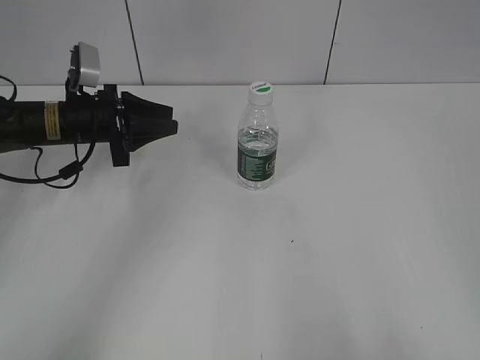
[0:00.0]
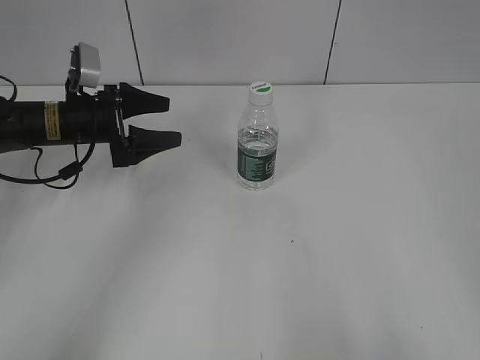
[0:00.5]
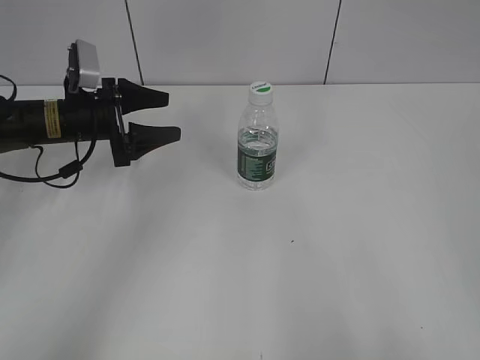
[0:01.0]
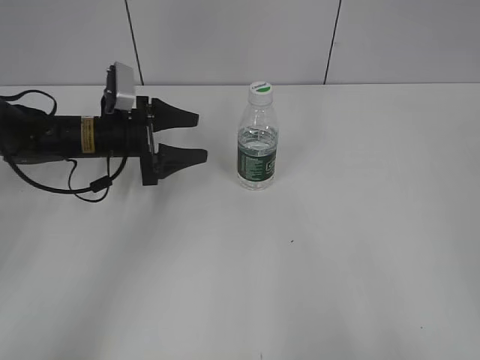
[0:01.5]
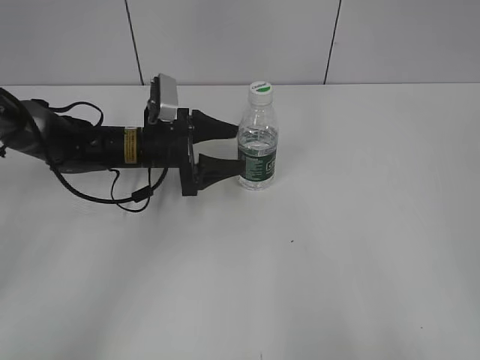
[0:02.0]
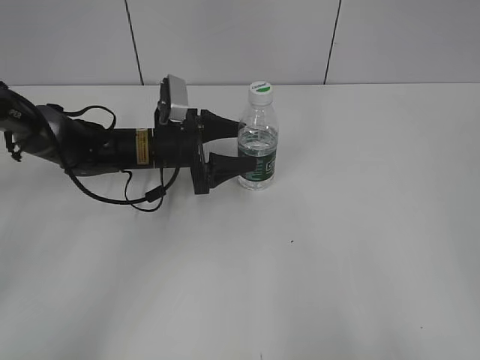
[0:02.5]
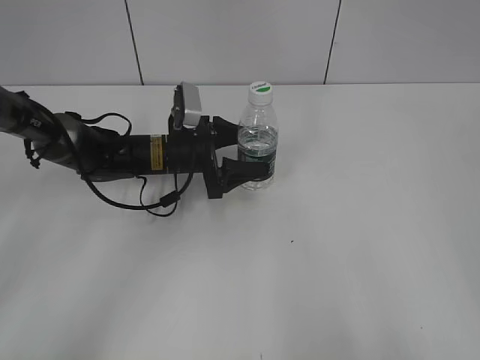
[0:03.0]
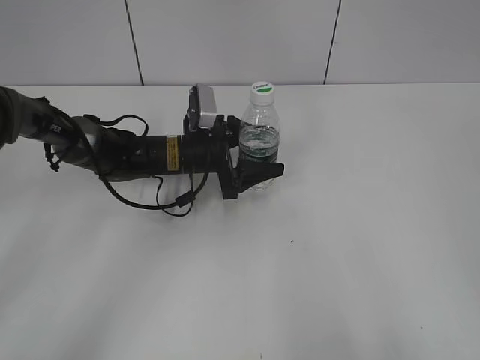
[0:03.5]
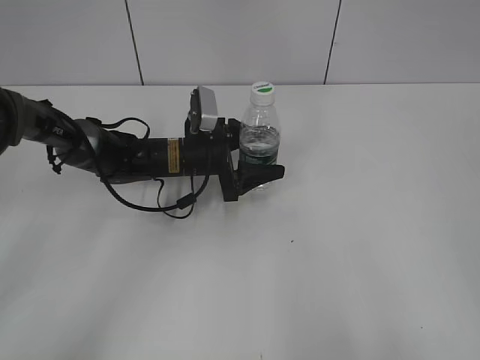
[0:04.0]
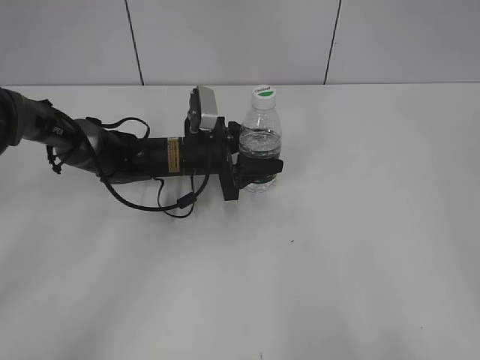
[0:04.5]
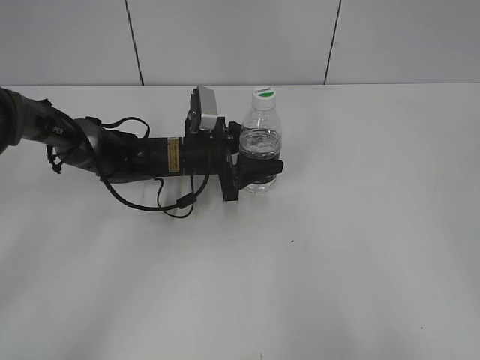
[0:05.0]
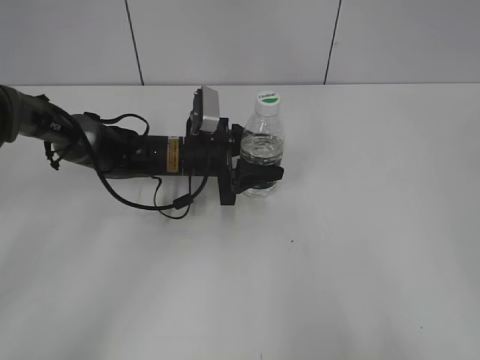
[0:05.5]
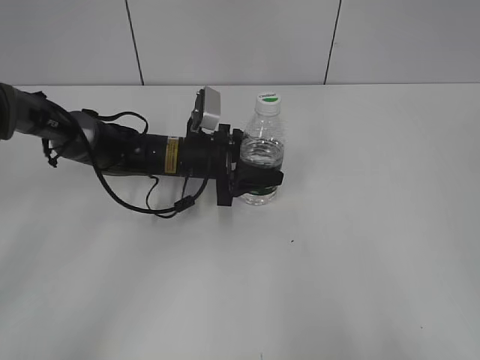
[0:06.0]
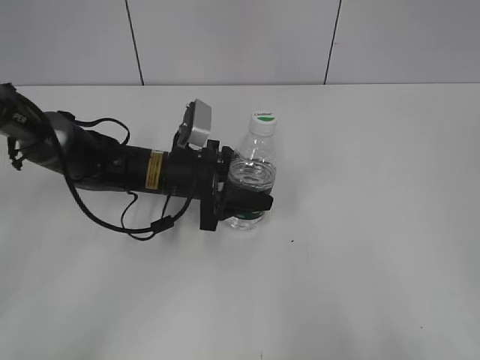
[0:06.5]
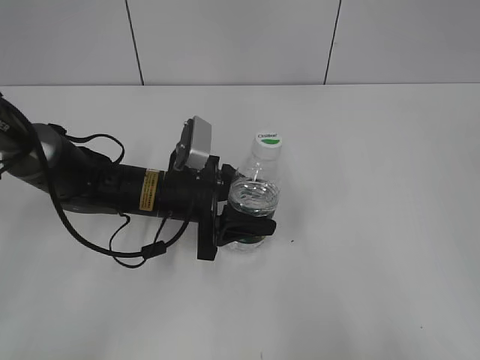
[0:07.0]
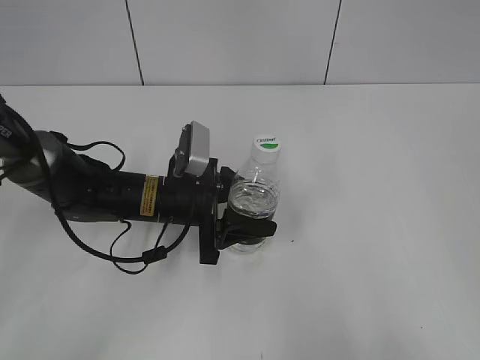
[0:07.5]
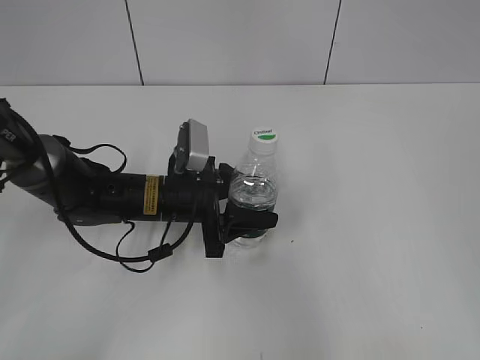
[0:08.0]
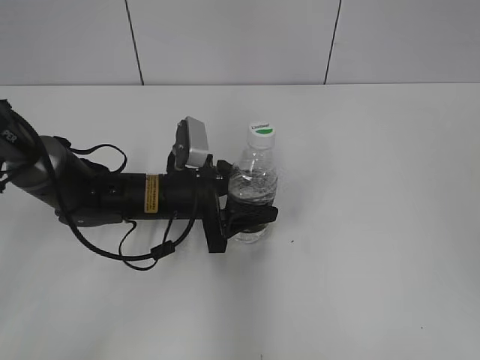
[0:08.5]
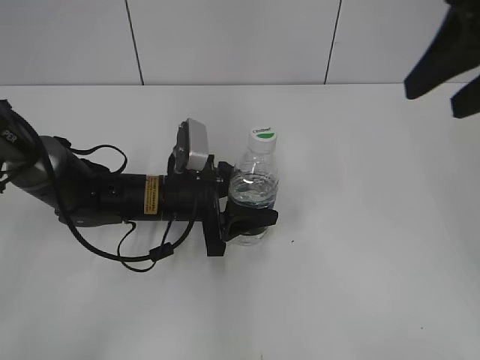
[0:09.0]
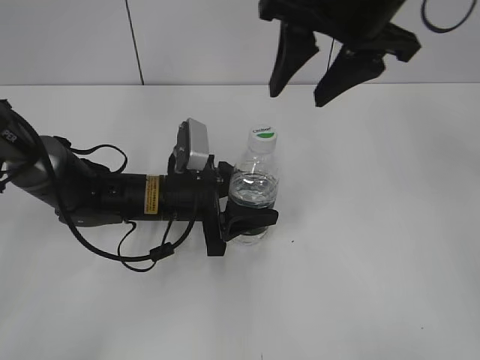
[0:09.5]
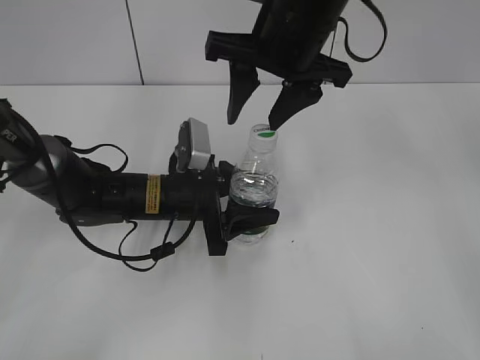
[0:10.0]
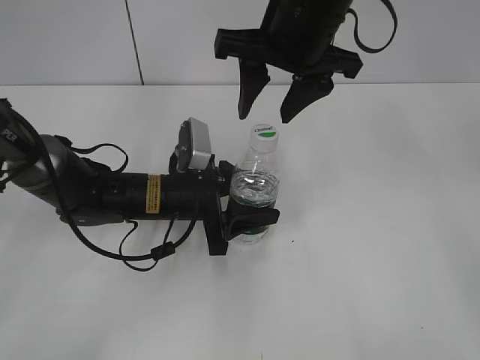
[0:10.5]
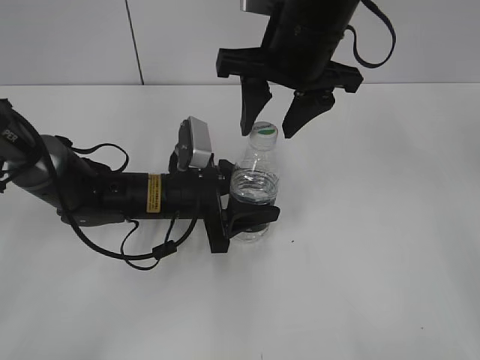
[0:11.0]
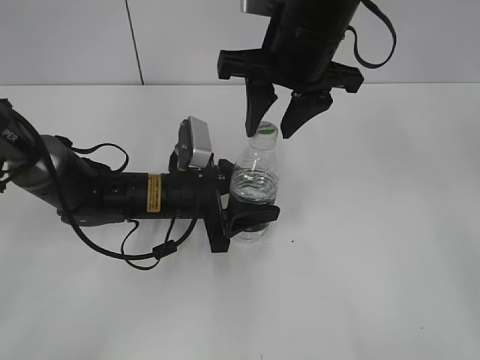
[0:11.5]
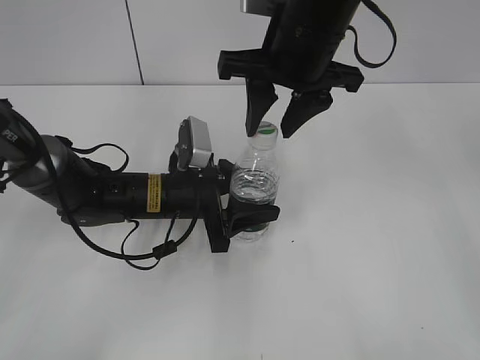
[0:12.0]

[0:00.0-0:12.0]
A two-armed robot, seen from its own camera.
Step, 0:00.0 to 0:05.0: Grasp the bottle and move it to the center of the table with the left gripper.
Step, 0:05.5 to 0:10.5: Lift the bottle and move it to the center of the table with the left gripper.
0:00.0 to 0:02.0: The left gripper moves to the right, about 10 cm, and opens its fingers.
0:02.0 to 0:04.0: The left gripper heads to the right, covering about 5 cm.
0:04.0 to 0:06.0: The left gripper closes.
0:06.0 to 0:08.0: The left gripper moves backward, approximately 10 cm. The right gripper moves about 5 cm.
0:08.0 to 0:10.0: The right gripper moves forward and to the left, approximately 40 cm.
0:10.0 to 0:12.0: The grippers move only a little.

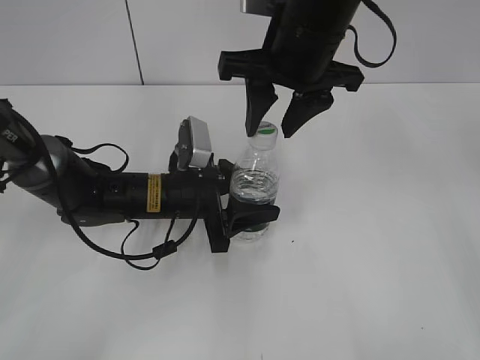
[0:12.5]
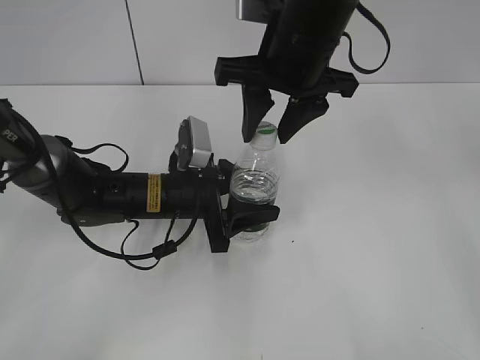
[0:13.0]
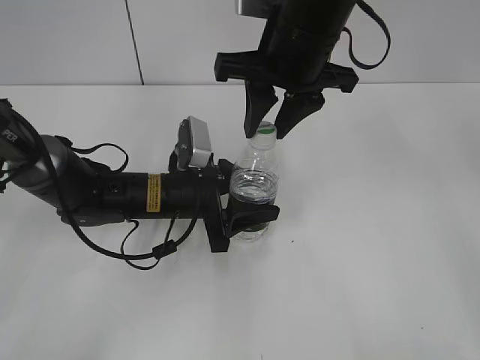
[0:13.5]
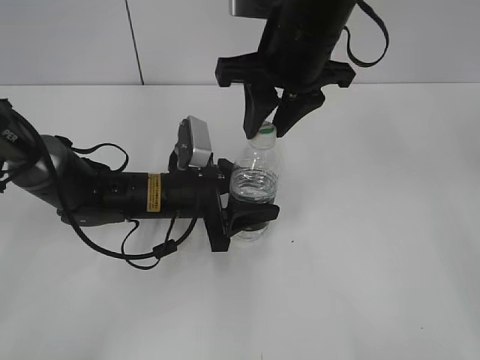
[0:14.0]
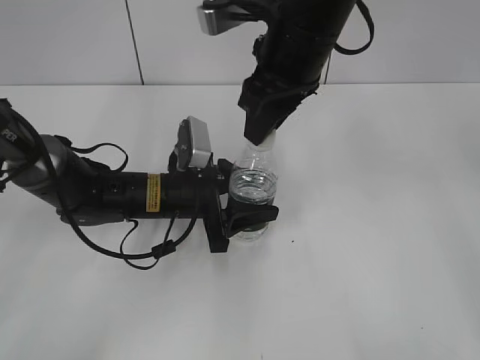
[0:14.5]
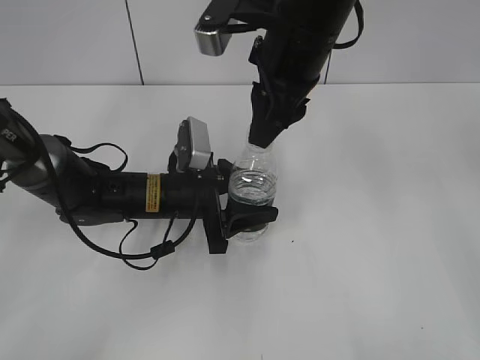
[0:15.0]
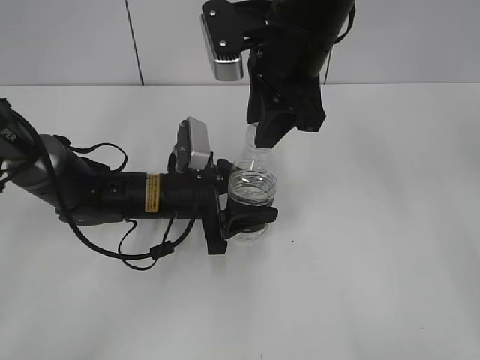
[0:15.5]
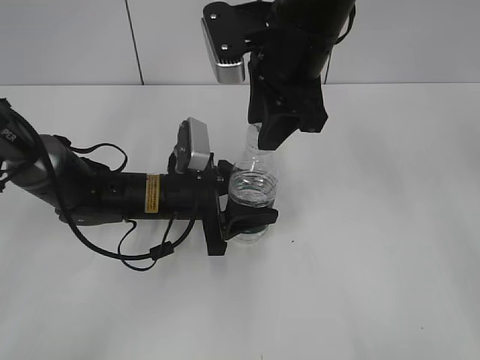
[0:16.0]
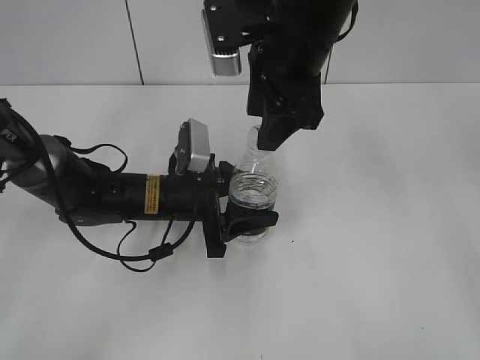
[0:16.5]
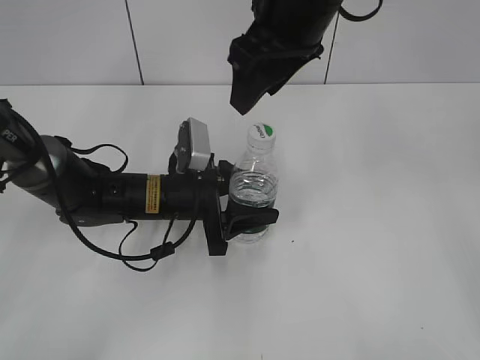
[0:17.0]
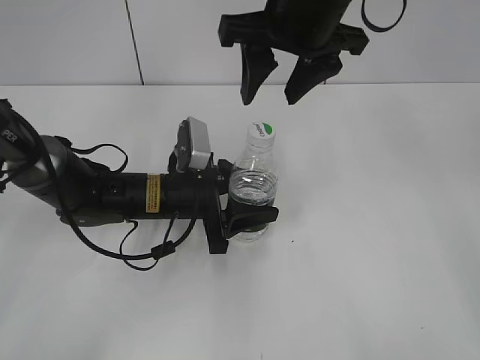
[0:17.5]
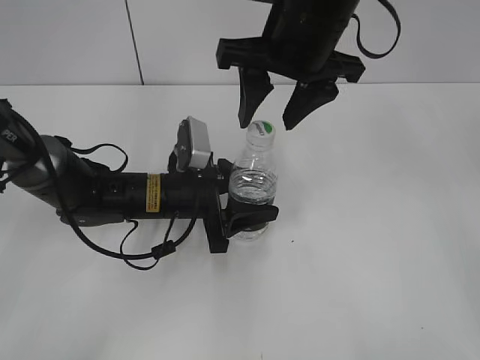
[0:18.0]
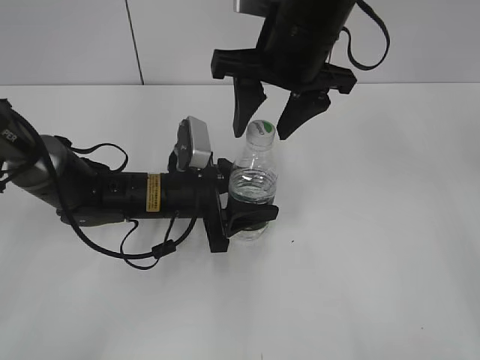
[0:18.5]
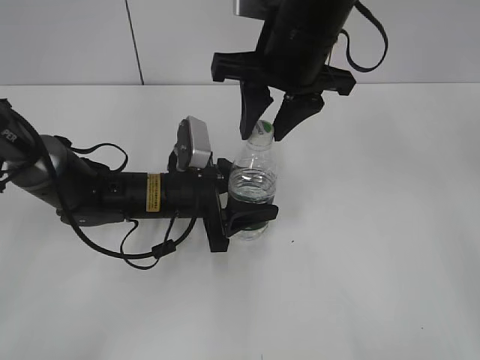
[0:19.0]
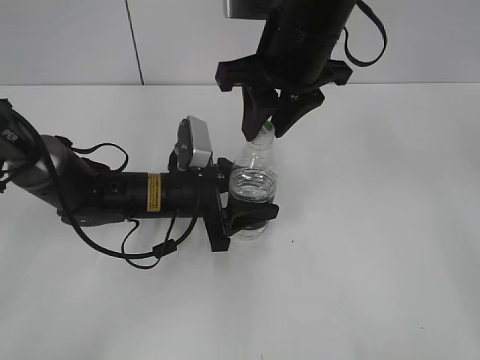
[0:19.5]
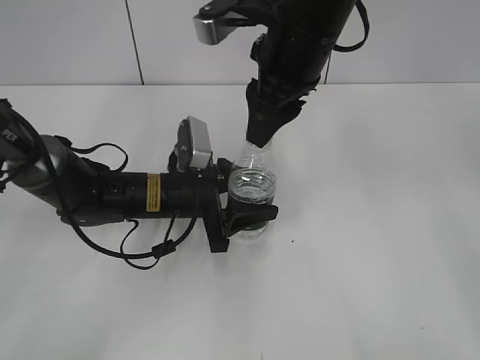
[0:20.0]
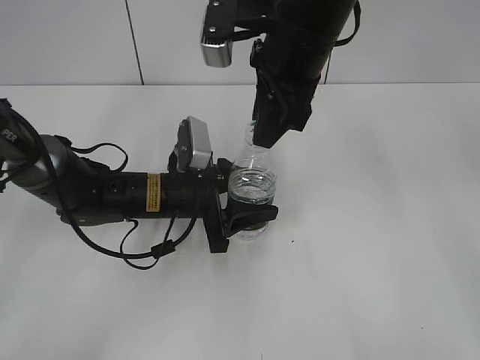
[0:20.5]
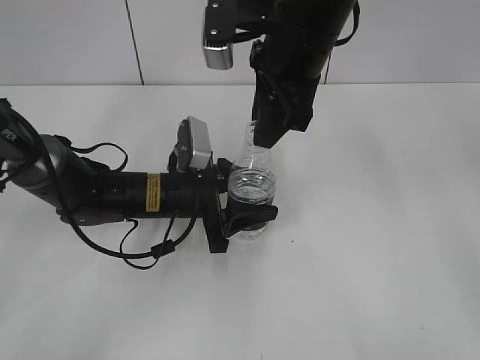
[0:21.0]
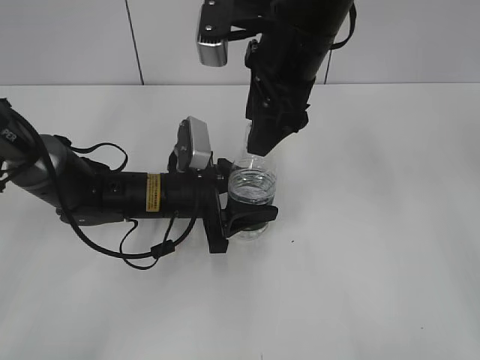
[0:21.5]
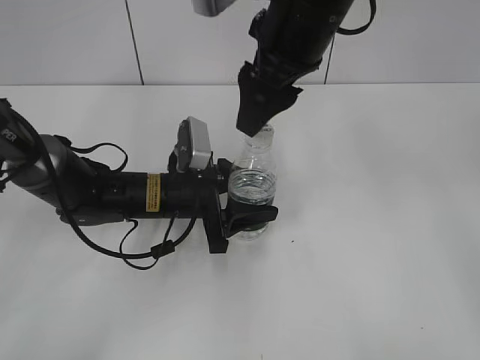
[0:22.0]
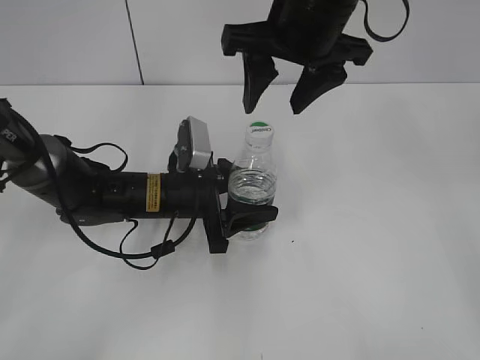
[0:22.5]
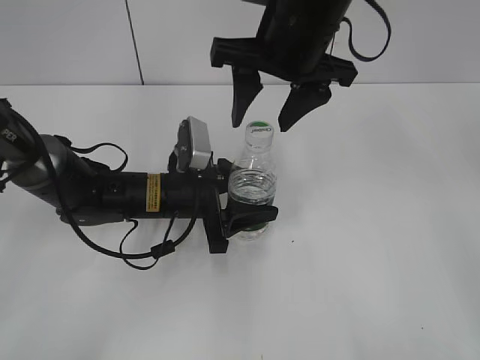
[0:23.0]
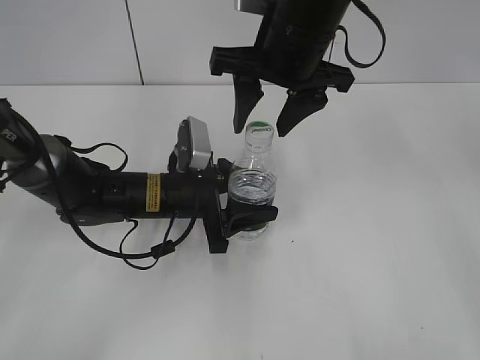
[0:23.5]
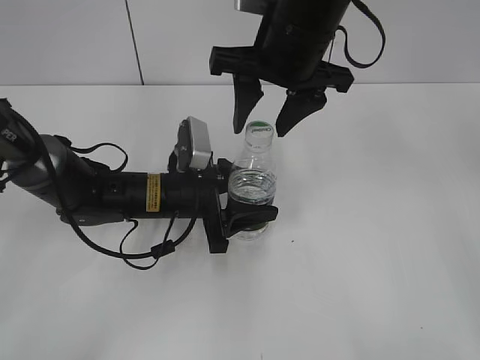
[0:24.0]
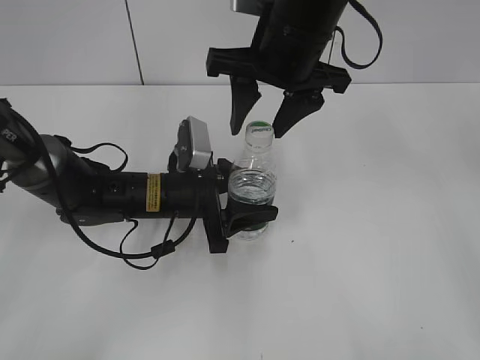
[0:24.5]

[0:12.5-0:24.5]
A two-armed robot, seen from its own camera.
0:12.5 to 0:14.5: The right gripper closes up.
0:14.5 to 0:16.5: The right gripper opens.
0:18.5 to 0:20.5: The right gripper closes up.
0:20.5 to 0:22.5: The right gripper opens.
0:22.5 to 0:24.5: There are only small adjustments of the grippers.

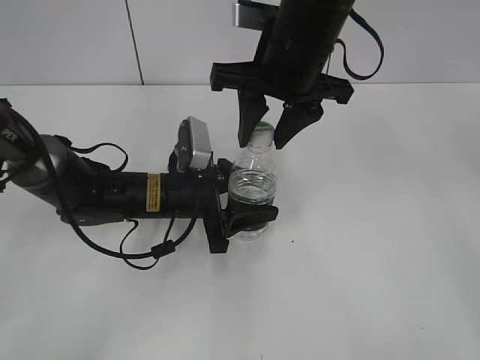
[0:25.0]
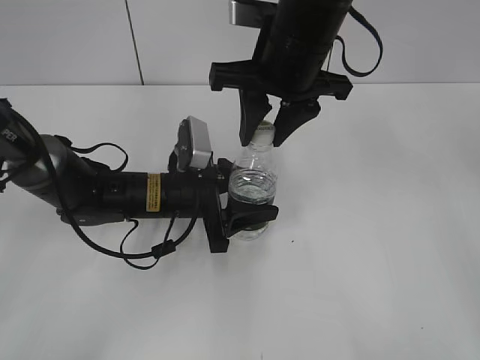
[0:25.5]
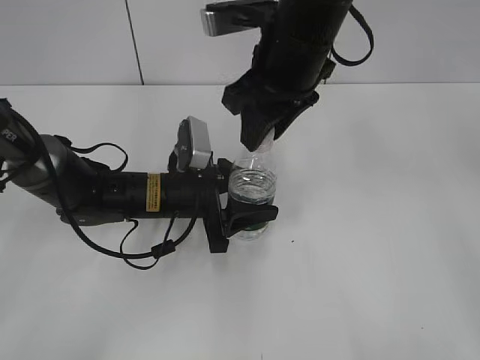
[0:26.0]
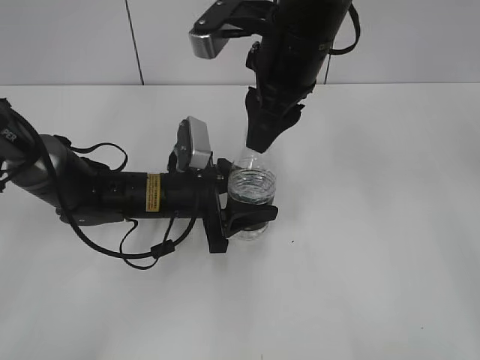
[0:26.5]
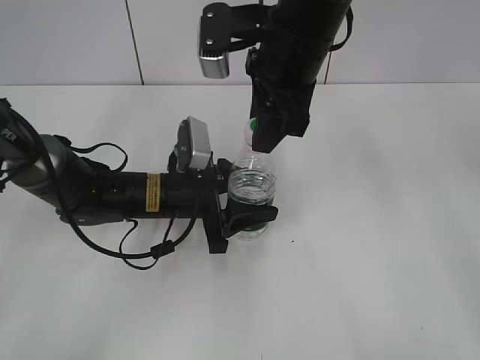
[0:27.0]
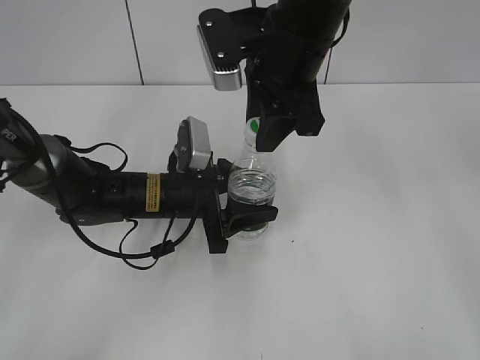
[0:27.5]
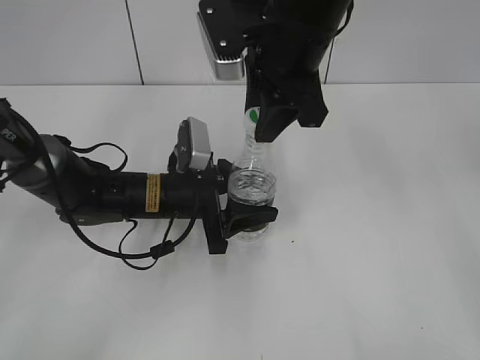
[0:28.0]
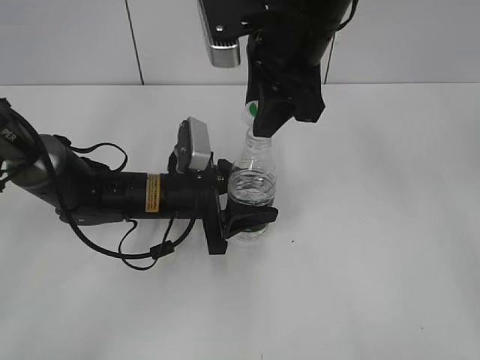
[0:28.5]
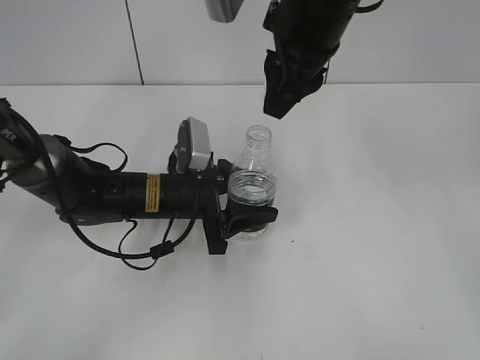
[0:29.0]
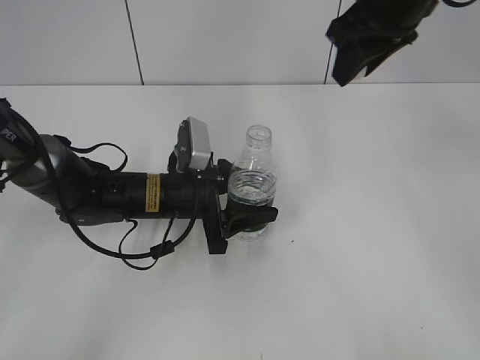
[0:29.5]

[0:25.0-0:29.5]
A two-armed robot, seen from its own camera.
Step, 0:25.0 to 0:28.5: Unscrew the bottle cap with the right gripper while holding the bottle with the left gripper.
0:25.0 to 0:27.0: The right gripper closes up.
0:27.0 to 0:29.5: The right gripper is displaced to the right by some 10 cm.
